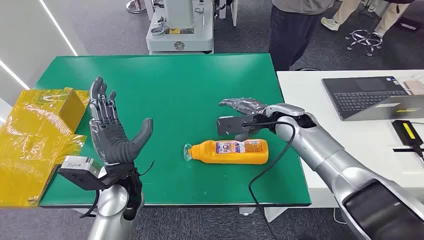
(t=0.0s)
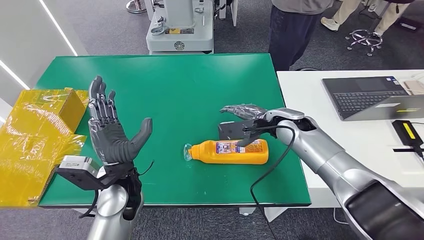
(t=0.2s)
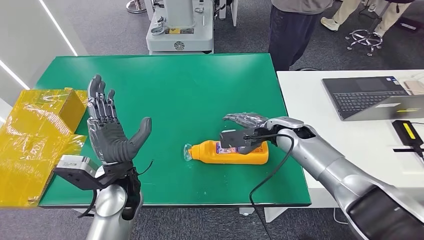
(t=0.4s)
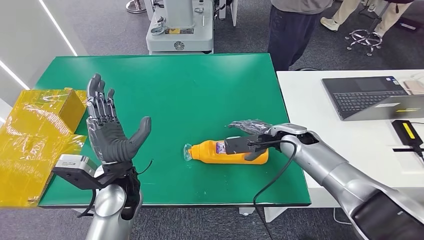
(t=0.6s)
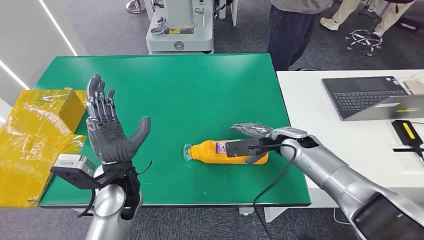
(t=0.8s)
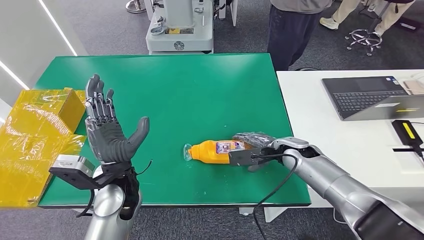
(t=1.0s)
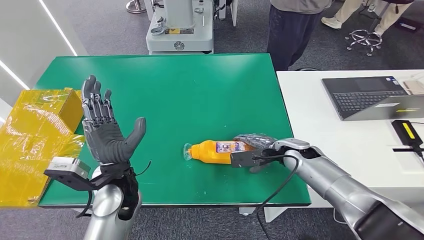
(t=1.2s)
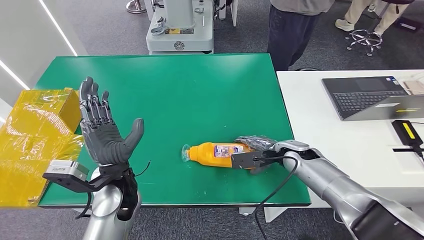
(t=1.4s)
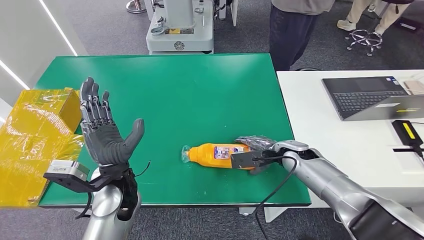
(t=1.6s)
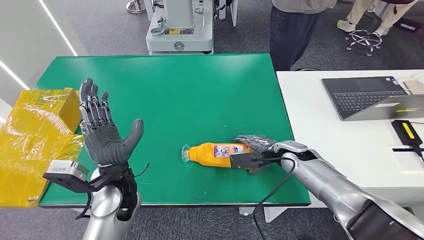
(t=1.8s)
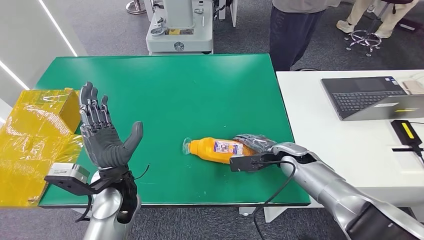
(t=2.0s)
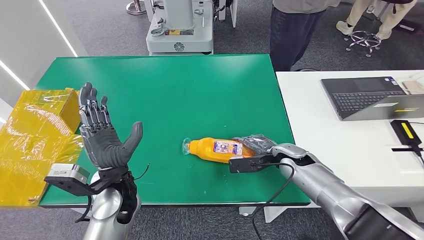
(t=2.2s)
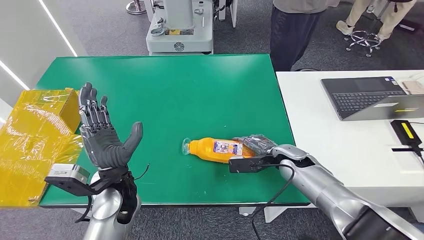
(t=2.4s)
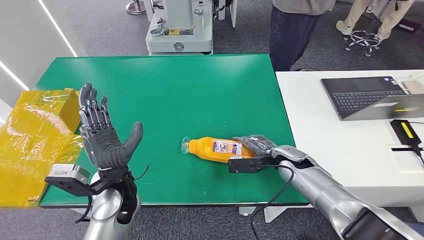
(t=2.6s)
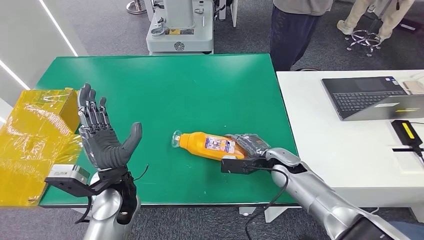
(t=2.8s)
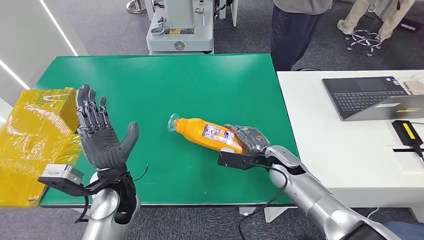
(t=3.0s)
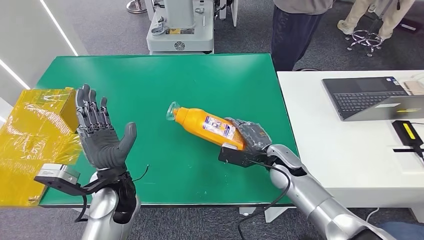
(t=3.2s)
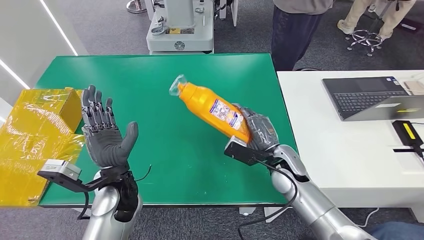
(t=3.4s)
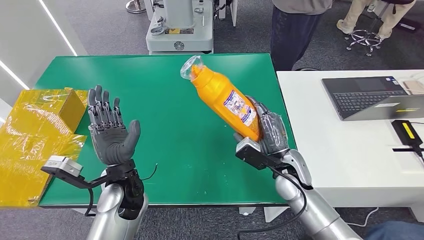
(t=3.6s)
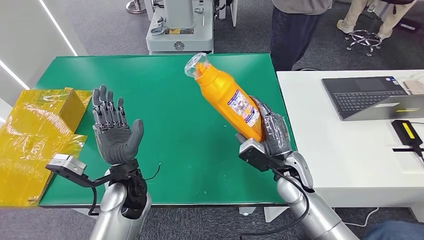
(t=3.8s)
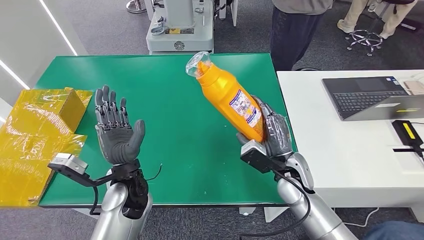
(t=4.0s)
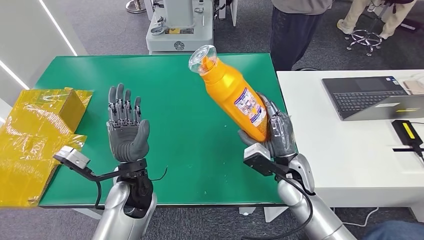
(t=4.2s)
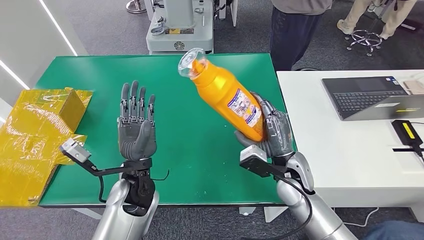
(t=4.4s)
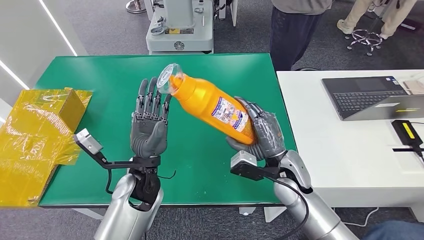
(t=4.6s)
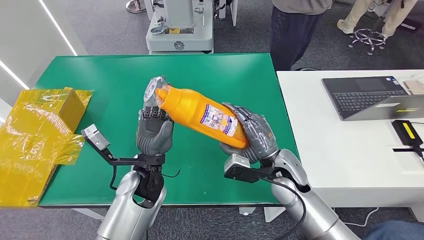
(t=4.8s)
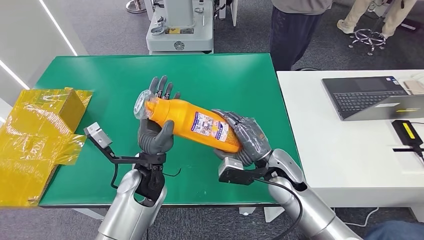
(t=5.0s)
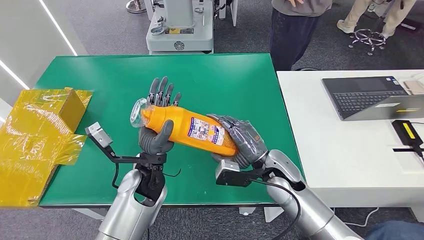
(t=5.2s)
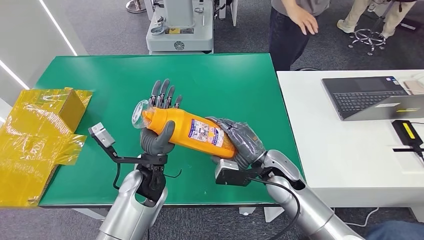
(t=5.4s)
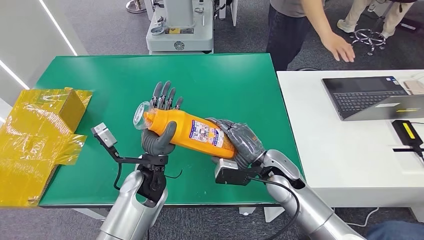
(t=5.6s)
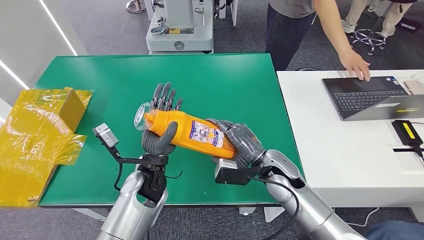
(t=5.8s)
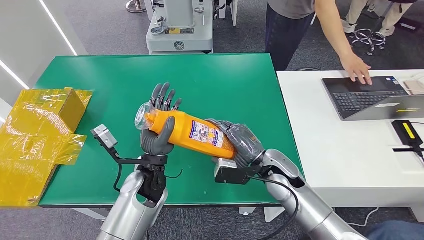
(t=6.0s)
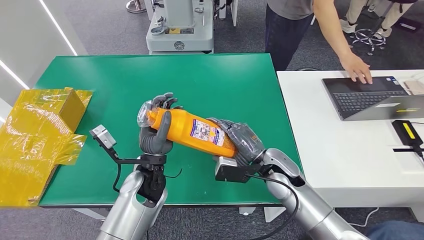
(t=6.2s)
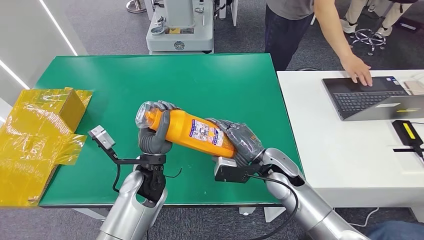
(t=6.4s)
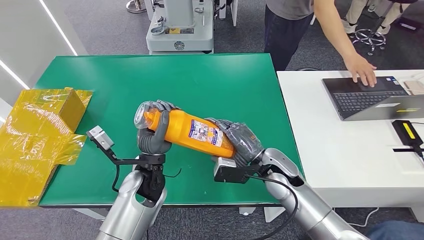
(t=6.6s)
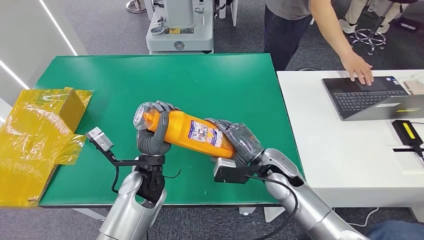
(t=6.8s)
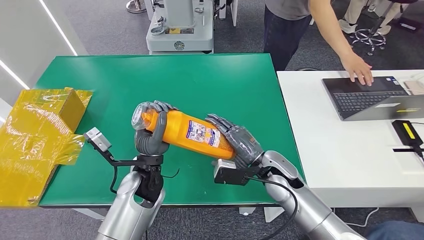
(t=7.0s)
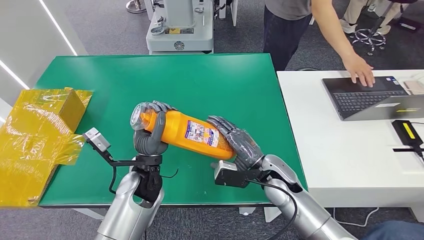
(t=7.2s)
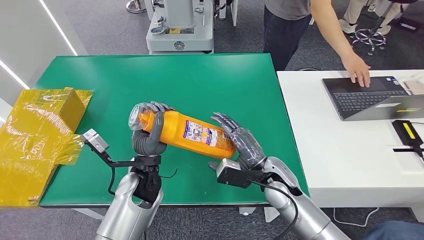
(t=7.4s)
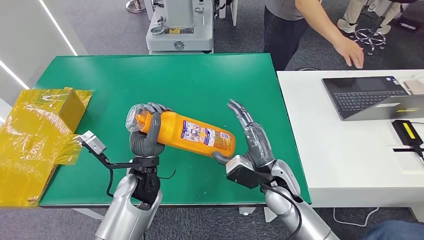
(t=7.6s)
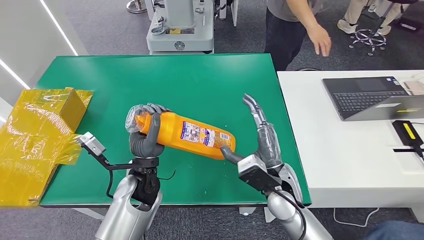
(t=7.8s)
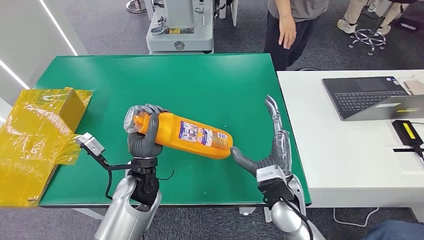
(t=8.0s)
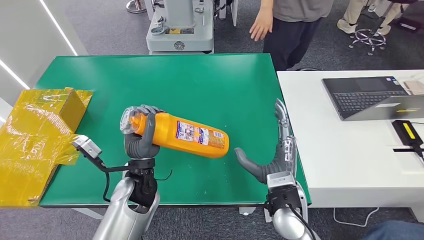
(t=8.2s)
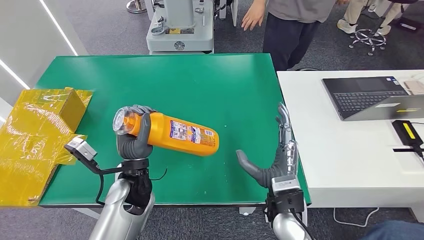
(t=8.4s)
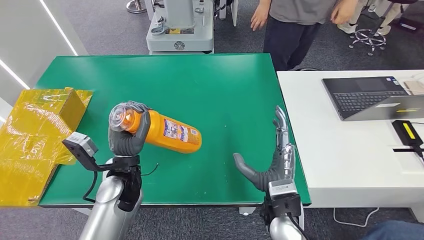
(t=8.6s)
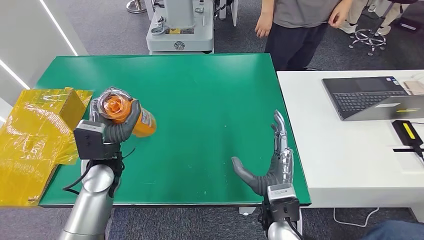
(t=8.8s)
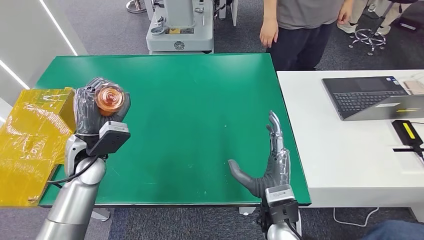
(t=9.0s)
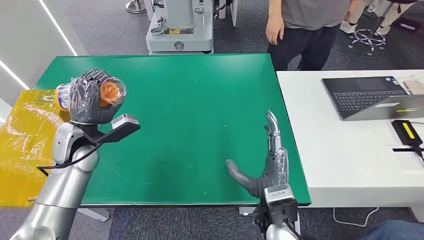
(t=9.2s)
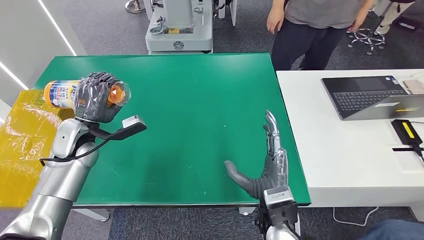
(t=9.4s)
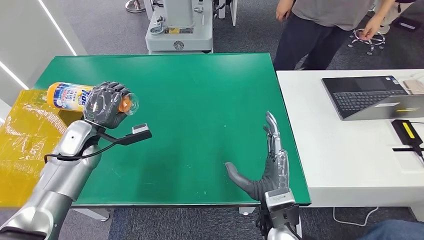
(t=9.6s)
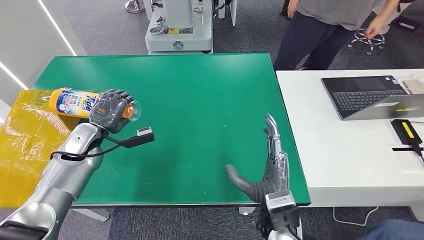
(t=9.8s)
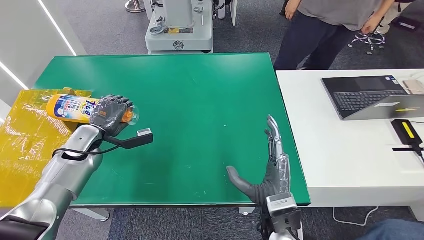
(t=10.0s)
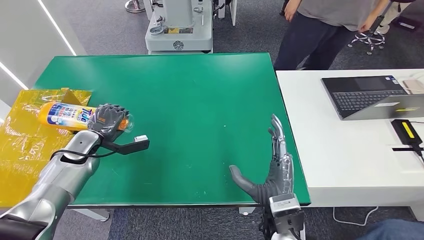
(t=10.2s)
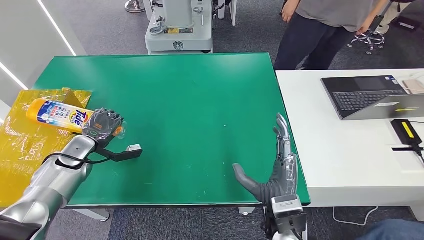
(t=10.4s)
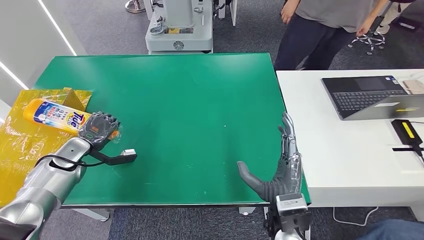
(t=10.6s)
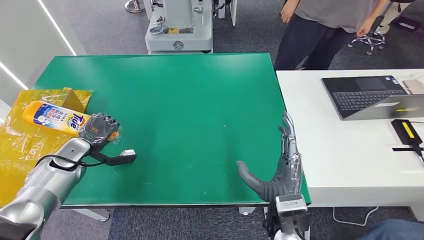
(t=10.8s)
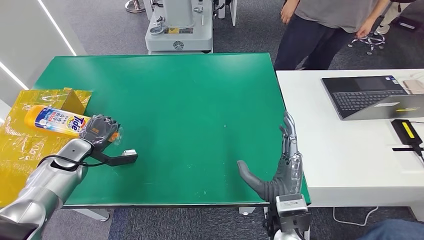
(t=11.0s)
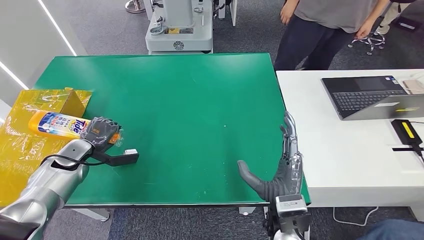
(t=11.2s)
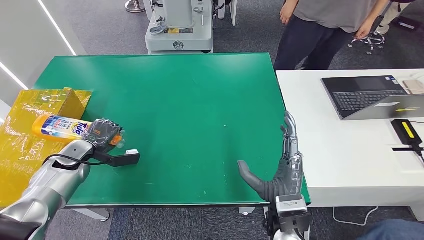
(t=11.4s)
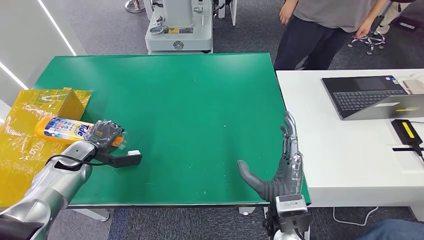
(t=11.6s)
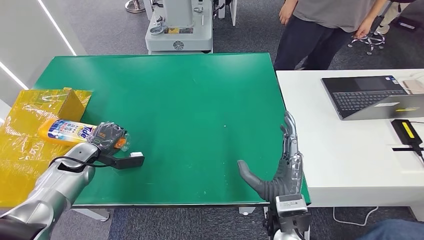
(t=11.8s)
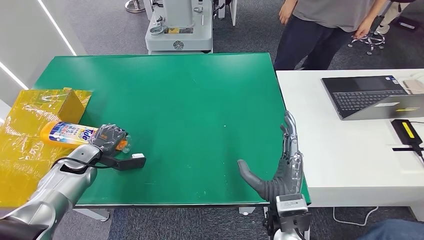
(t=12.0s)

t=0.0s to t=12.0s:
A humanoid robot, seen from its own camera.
Step, t=0.0s to t=4.4s: Pick up the bottle from the table.
t=1.6s to t=3.0s: The right hand shifts some 5 cm to the left.
t=3.0s to t=4.4s: The right hand goes about 5 cm backward.
t=10.4s to t=12.0s: There are only small adjustments of the hands.

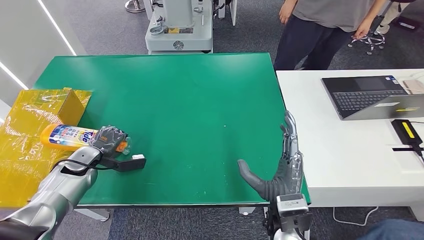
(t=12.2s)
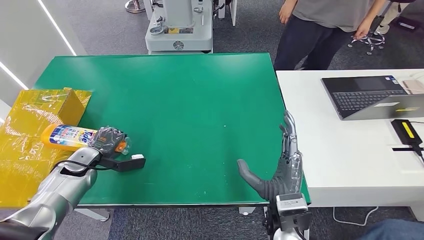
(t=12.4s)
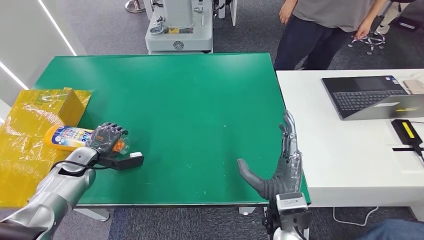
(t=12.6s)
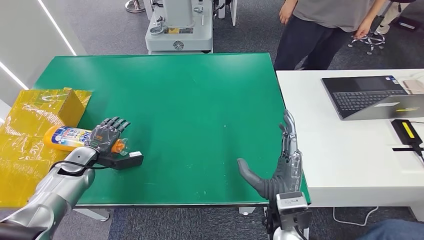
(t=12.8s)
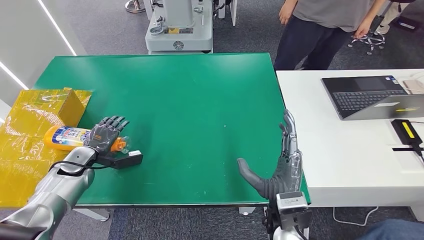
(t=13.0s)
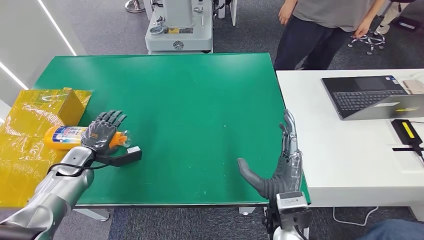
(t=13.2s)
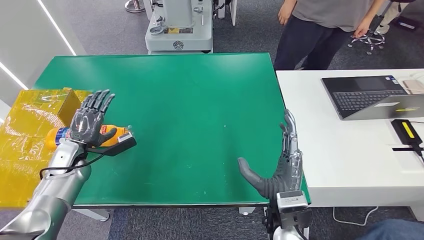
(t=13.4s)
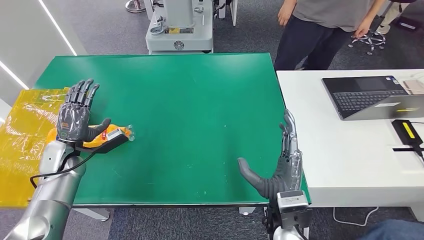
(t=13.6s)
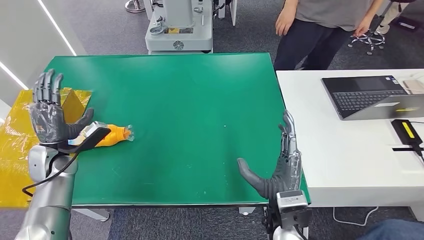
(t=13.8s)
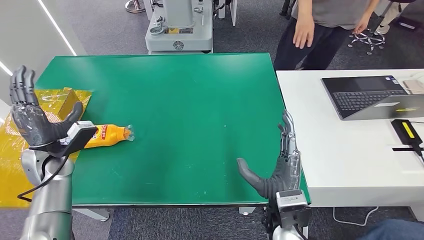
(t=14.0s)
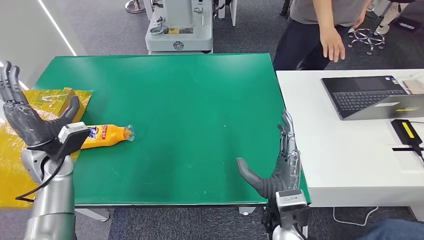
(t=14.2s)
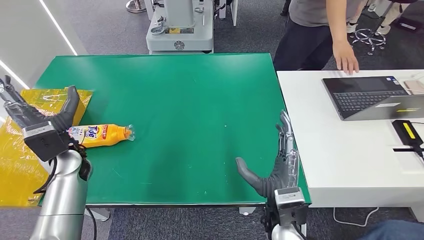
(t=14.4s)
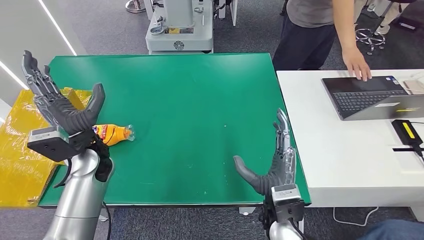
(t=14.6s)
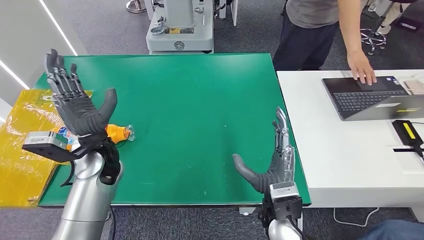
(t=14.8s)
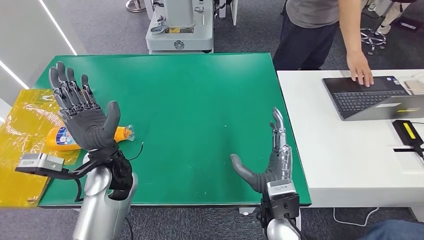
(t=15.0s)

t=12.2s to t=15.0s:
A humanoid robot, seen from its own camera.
Step, t=12.2s to t=15.0s: Turn the bottle to the front side.
t=13.6s to t=15.0s: The left hand moves to the right, some 20 cm.
